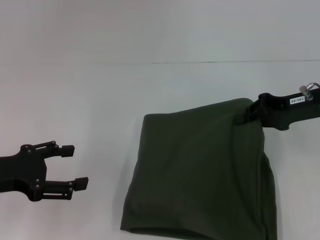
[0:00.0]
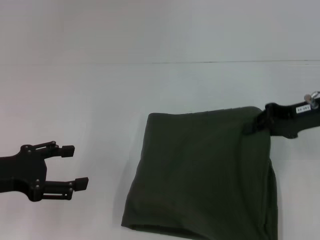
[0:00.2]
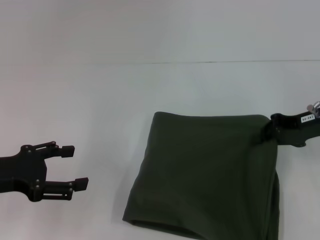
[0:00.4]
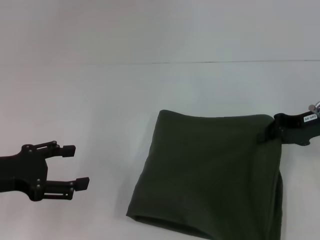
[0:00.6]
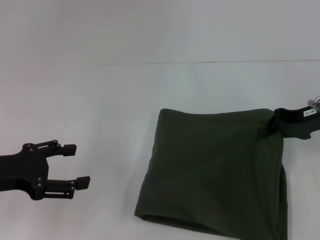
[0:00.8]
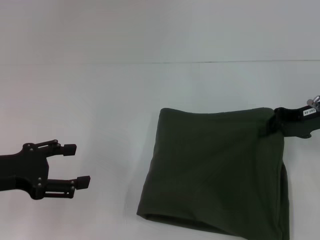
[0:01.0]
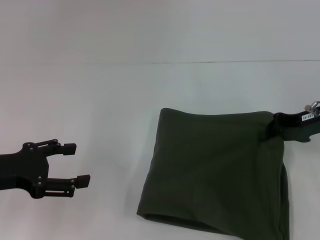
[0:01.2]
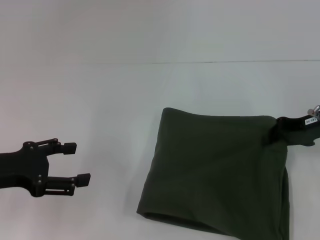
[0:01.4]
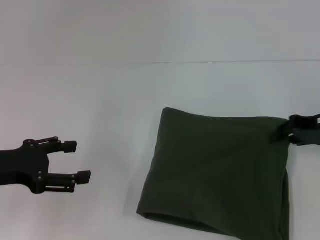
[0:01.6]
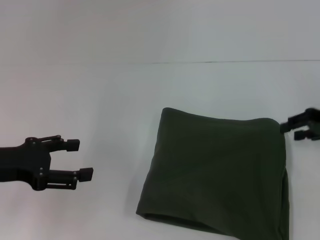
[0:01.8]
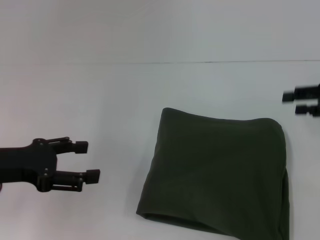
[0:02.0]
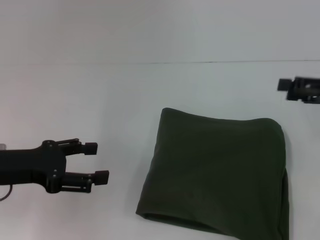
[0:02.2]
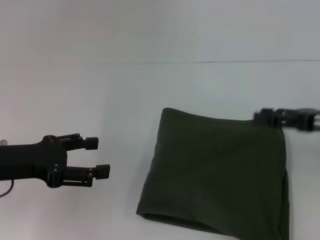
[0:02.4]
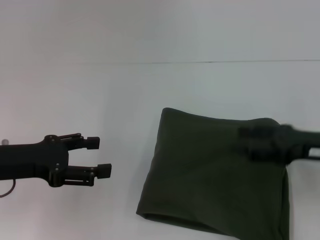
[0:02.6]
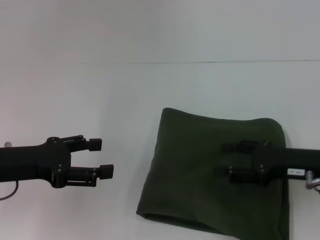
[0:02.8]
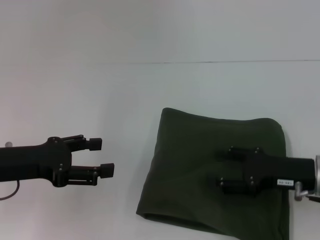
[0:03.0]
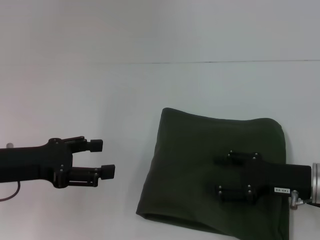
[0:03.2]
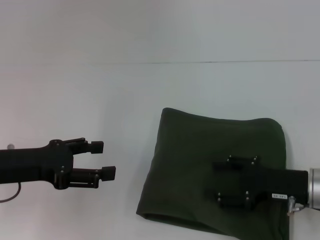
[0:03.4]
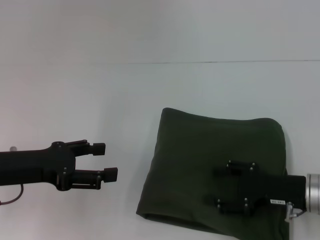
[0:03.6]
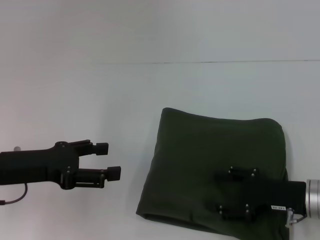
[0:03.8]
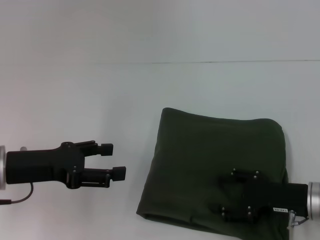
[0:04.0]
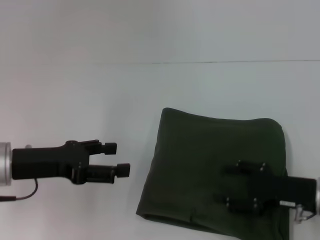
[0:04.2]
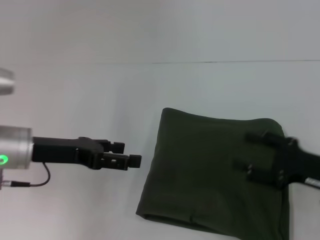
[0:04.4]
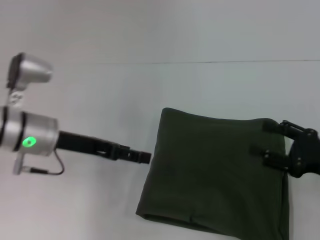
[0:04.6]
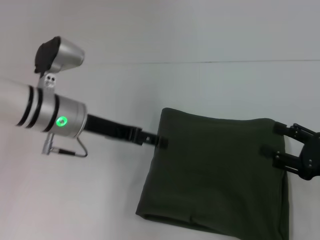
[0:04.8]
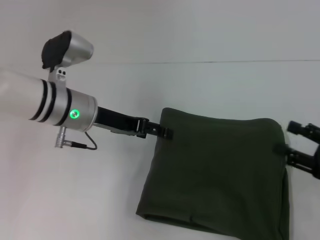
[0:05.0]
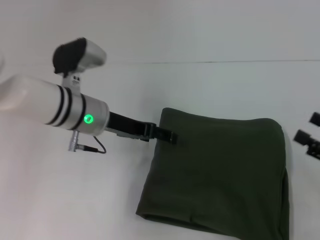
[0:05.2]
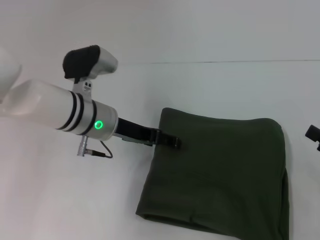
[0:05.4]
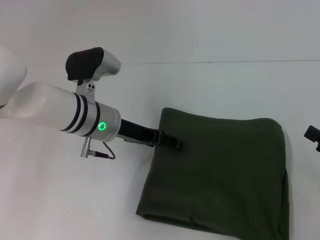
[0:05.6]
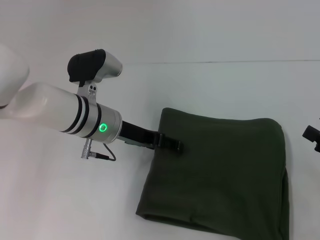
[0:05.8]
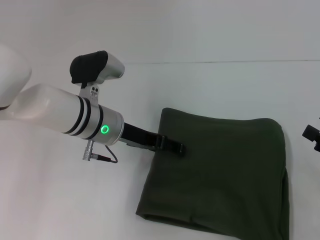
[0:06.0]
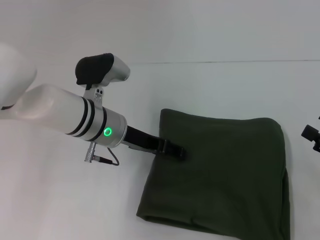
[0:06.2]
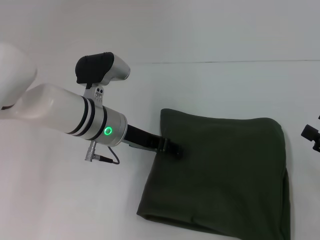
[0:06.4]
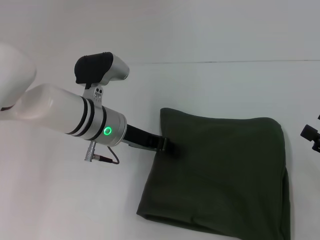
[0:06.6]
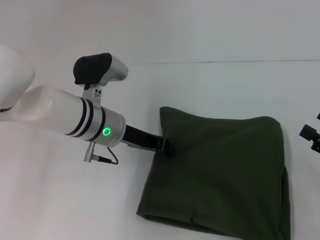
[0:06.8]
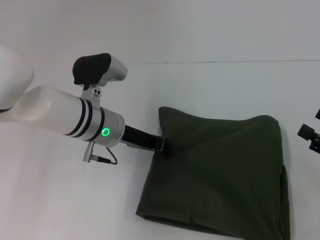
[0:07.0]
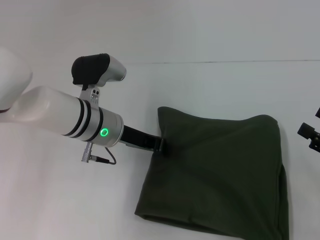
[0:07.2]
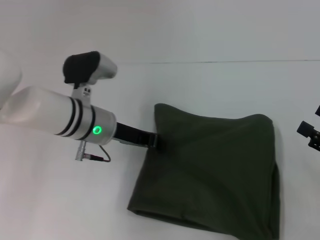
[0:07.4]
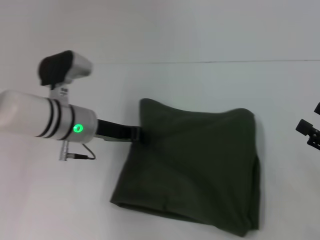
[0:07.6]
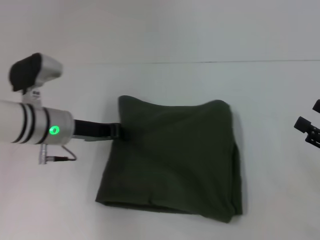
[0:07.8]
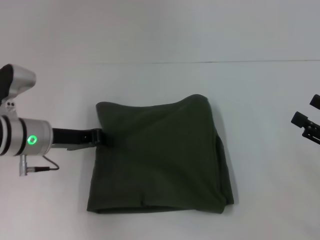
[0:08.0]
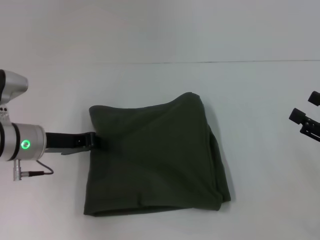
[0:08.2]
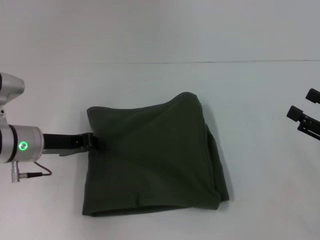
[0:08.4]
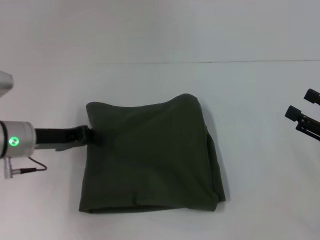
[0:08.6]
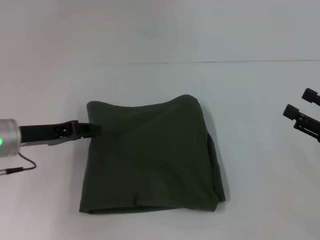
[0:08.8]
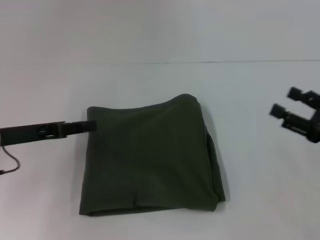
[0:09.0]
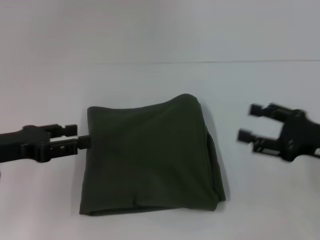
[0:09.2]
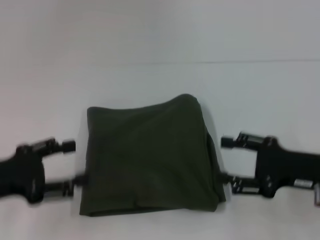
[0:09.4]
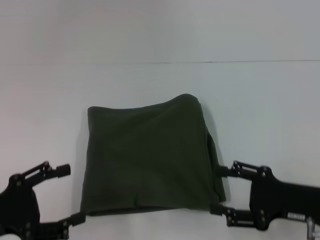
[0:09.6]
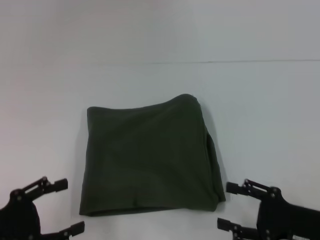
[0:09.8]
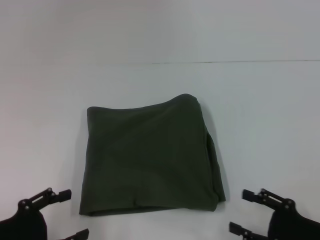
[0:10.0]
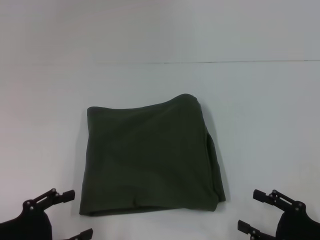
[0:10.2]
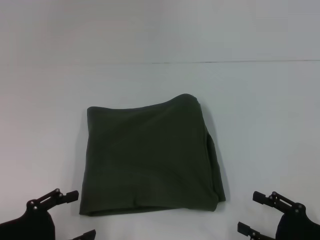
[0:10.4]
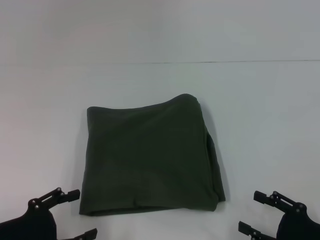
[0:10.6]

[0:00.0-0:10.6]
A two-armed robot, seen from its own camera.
0:00.0 to 0:01.6: There are only small adjustments of the grippers.
0:01.6 to 0:03.0: The right gripper is displaced backward, to the left and downward by some 10 cm, and opens up.
0:03.0 to 0:04.6: The right gripper shifts roughly 5 cm to the right; the left gripper goes roughly 10 cm forward and to the right.
0:04.6 to 0:06.0: The right gripper shifts about 5 cm to the right; the left gripper is displaced to the right by approximately 10 cm.
0:06.0 to 0:07.6: The left gripper closes its fingers.
0:07.6 to 0:09.0: The left gripper is displaced to the left and backward by approximately 15 cm; the right gripper moves approximately 5 cm.
0:09.0 to 0:10.6: The two grippers go about 15 cm backward and downward. The left gripper opens up.

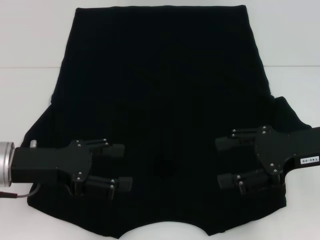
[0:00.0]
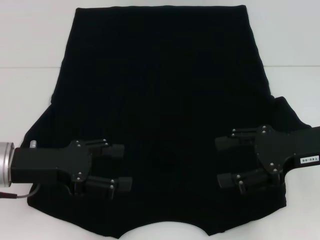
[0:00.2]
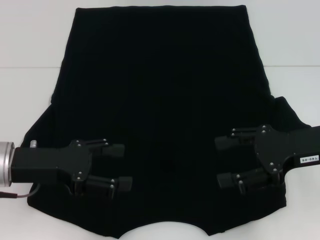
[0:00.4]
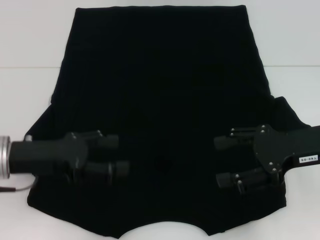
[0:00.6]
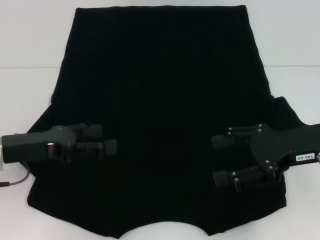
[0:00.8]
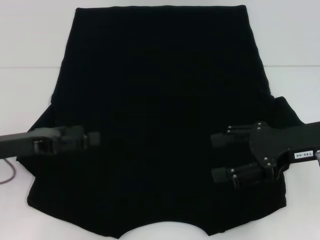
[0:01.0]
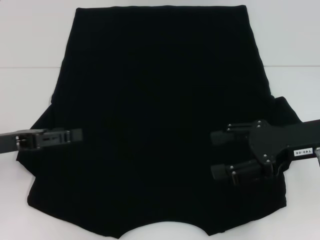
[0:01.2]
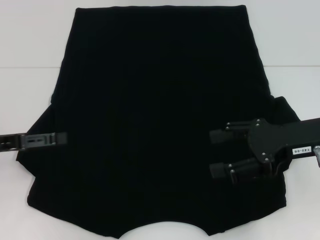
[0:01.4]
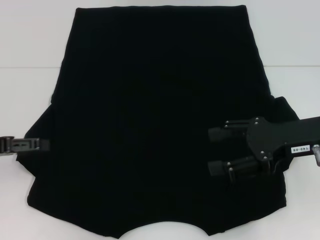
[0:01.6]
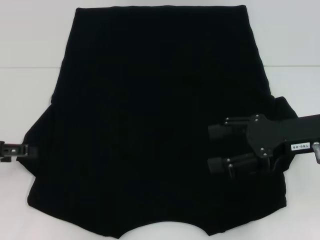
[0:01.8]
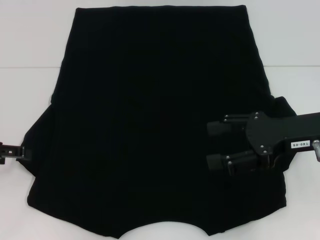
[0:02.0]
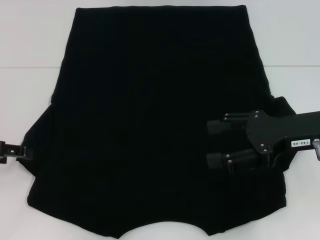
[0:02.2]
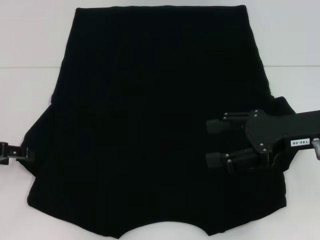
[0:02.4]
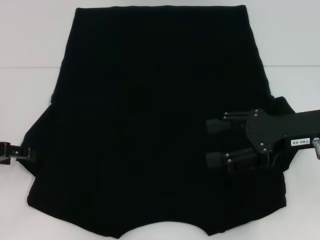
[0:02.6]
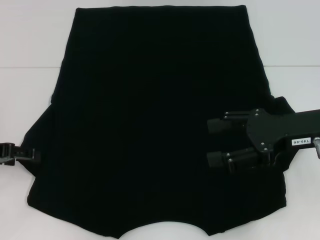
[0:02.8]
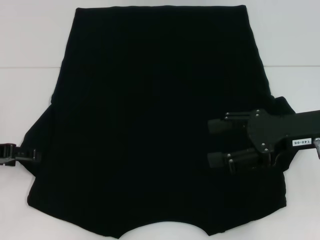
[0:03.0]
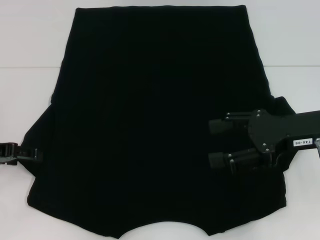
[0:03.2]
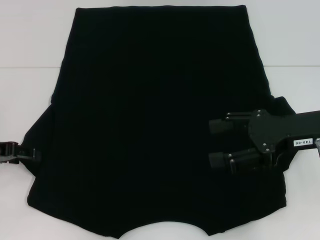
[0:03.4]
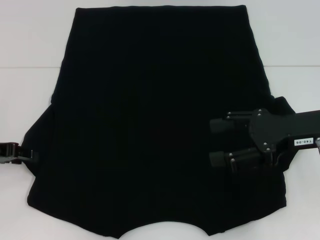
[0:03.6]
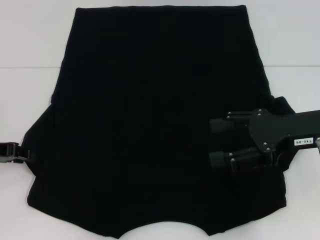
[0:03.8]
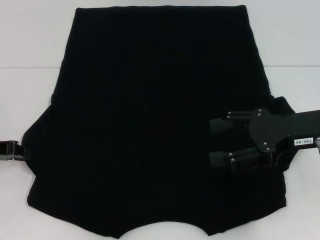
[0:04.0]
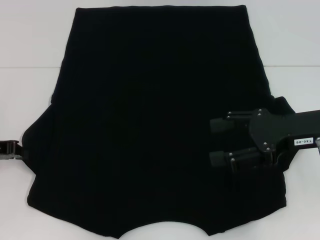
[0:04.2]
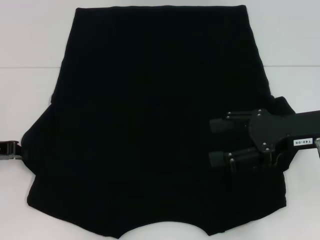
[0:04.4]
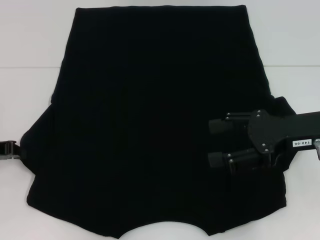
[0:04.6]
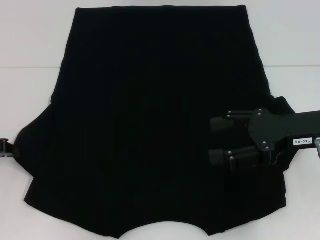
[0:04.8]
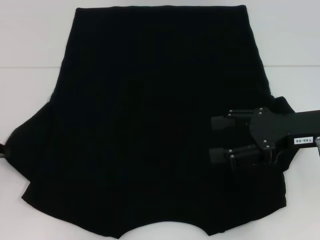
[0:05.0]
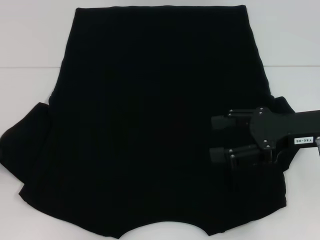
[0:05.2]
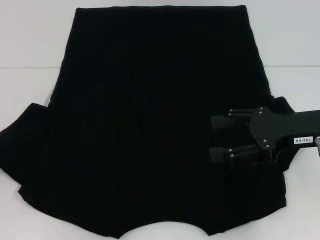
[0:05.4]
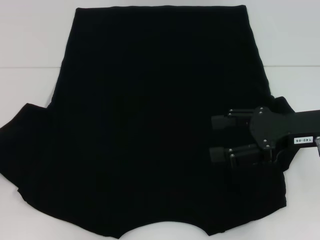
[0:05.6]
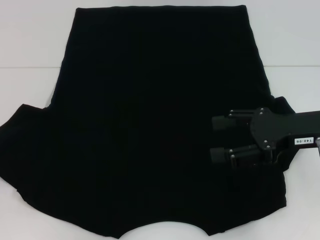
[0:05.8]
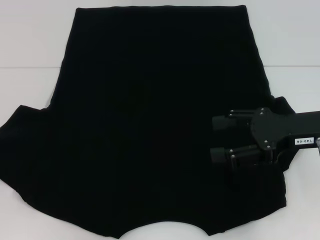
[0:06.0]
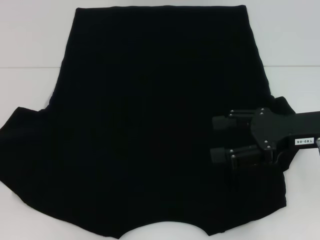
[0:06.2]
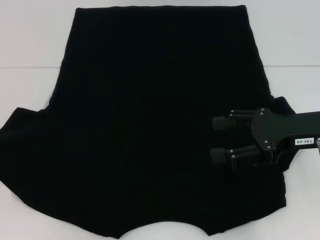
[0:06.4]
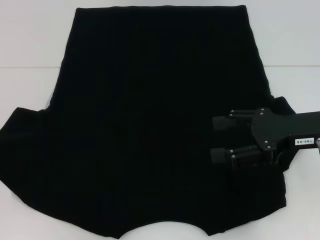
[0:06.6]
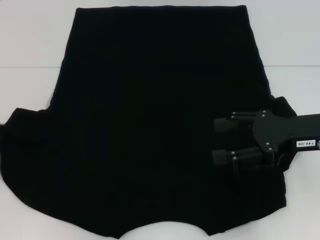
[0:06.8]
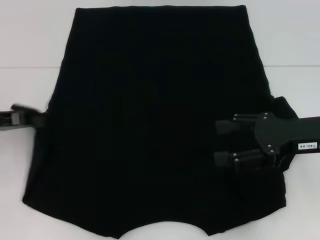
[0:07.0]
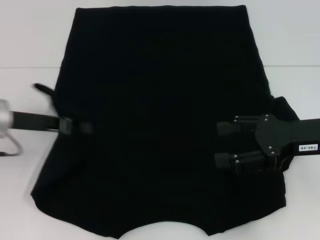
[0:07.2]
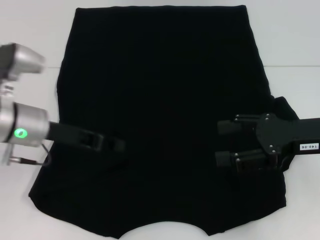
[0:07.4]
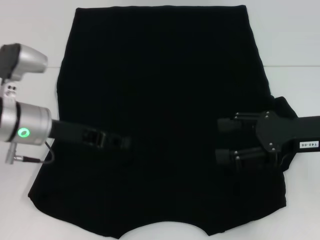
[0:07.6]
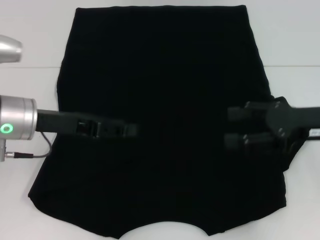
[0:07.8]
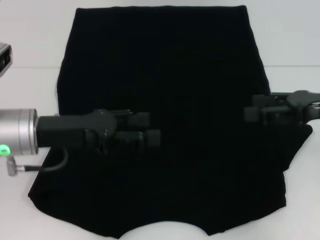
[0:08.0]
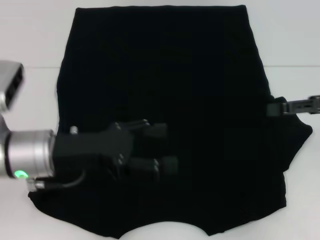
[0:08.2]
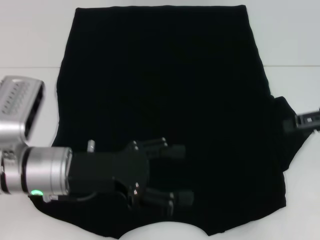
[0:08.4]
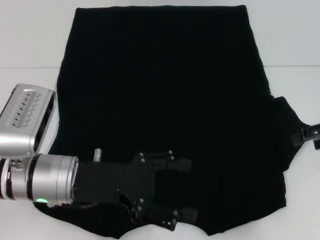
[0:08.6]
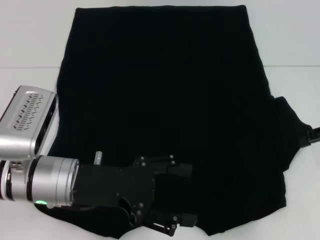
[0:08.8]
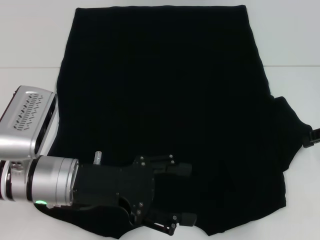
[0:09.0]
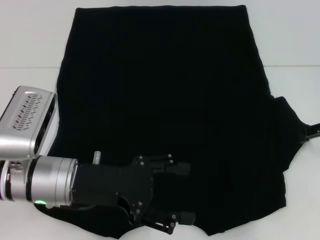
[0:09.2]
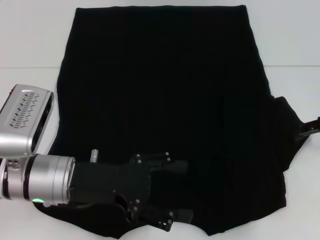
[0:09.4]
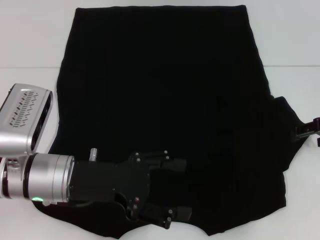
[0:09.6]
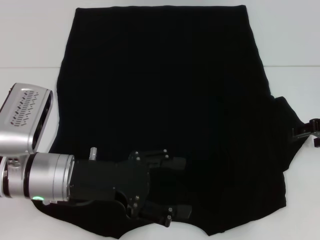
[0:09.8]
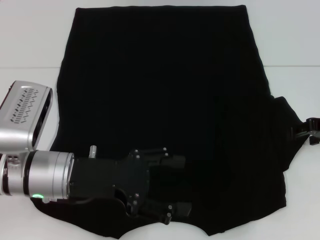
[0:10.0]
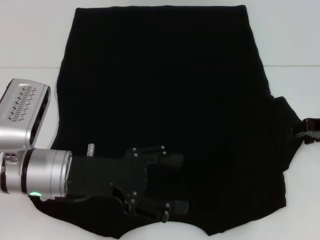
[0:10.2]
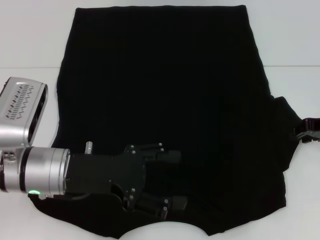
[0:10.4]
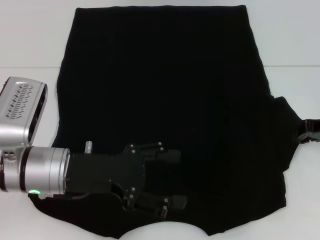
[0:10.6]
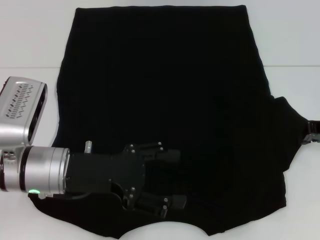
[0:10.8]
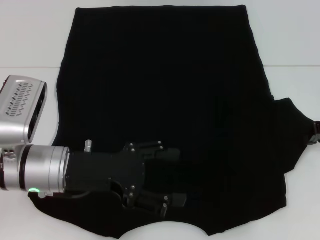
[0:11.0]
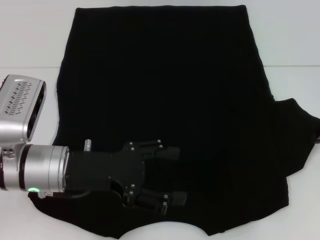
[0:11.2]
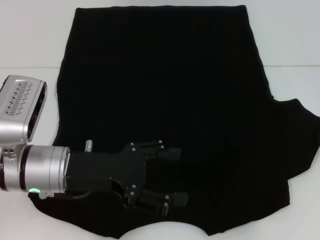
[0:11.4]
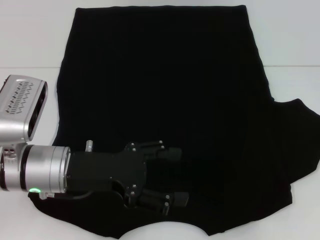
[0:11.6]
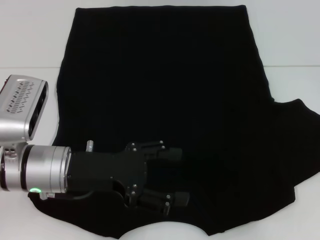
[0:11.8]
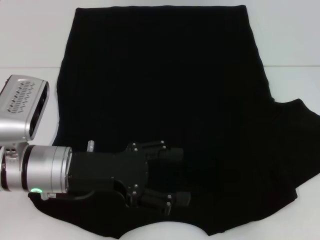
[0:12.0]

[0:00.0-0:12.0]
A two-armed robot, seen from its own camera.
Step, 0:00.0 to 0:07.2: Fold the bottom left sleeve with your left hand.
0:00.0 to 0:01.6: The left gripper travels to the left by some 10 cm.
0:01.6 to 0:03.0: The grippers make only small movements.
0:03.0 to 0:04.4: The left gripper closes its fingers.
0:04.4 to 0:06.0: The left gripper is displaced to the left by some 5 cm.
0:06.0 to 0:07.6: The left gripper goes about 20 cm to the right.
0:07.6 to 0:09.0: The right gripper travels to the right by some 10 cm; the left gripper goes about 5 cm backward, and opens its fingers.
0:09.0 to 0:10.4: The right gripper ends up about 5 cm from where it was.
0:10.4 to 0:12.0: The right gripper ends up some 5 cm from where it was, and closes.
